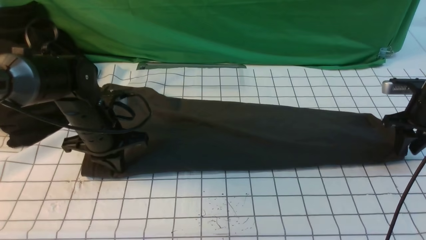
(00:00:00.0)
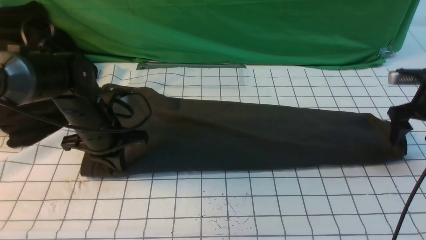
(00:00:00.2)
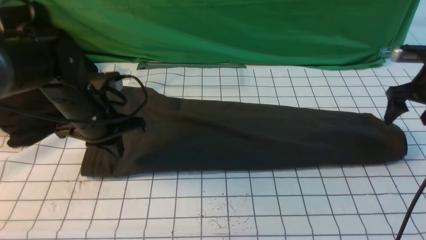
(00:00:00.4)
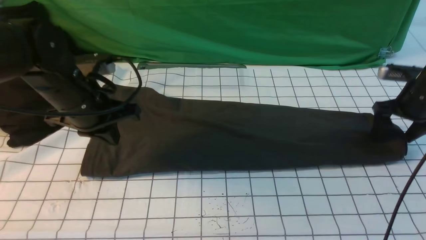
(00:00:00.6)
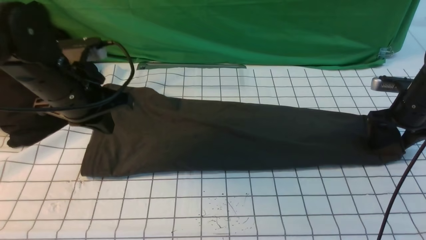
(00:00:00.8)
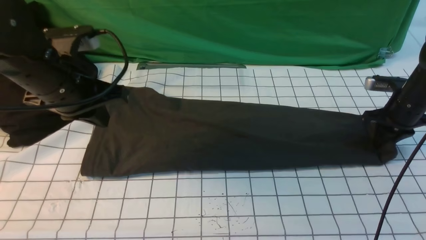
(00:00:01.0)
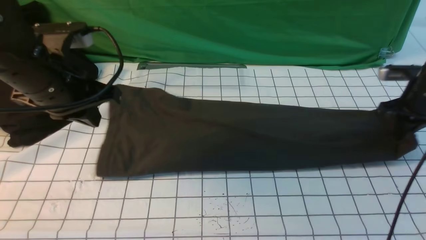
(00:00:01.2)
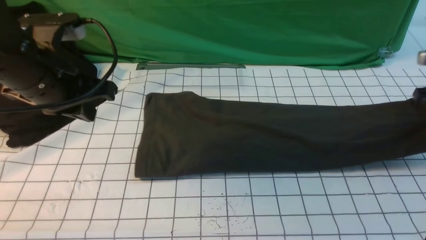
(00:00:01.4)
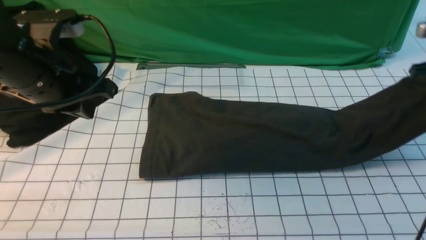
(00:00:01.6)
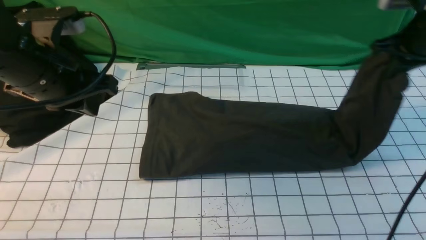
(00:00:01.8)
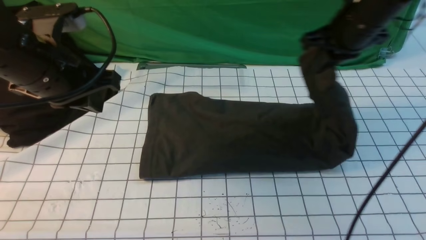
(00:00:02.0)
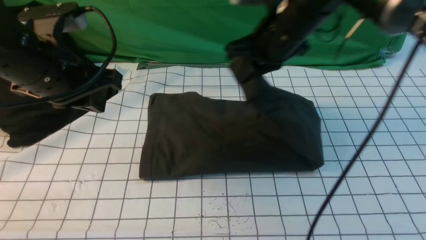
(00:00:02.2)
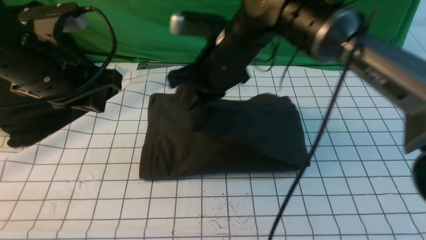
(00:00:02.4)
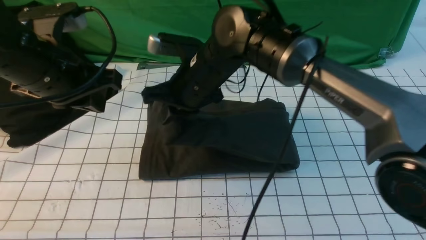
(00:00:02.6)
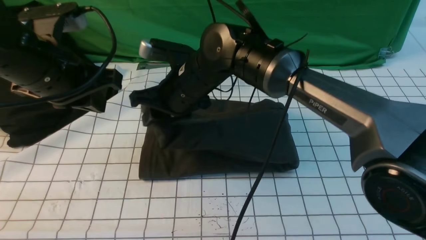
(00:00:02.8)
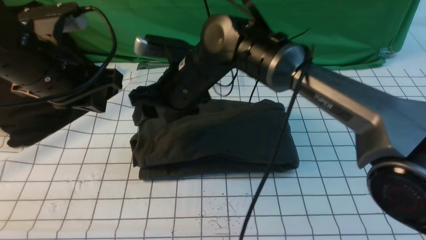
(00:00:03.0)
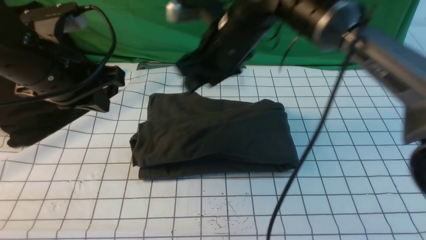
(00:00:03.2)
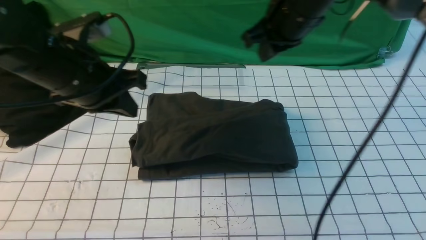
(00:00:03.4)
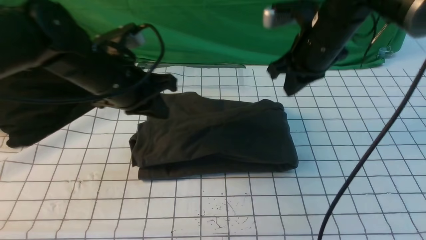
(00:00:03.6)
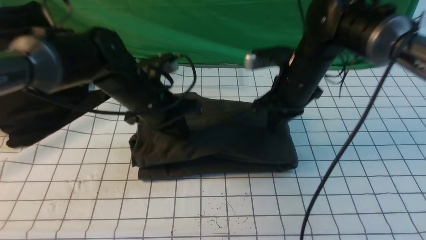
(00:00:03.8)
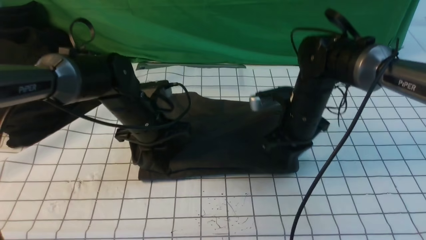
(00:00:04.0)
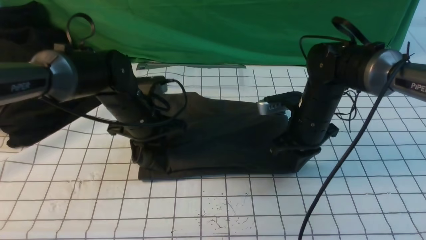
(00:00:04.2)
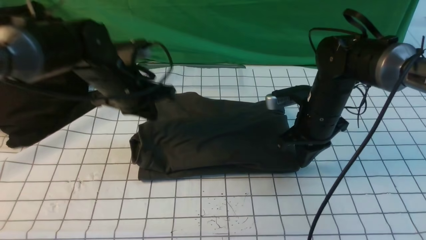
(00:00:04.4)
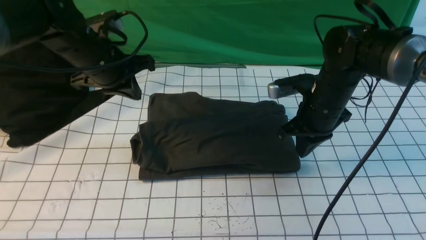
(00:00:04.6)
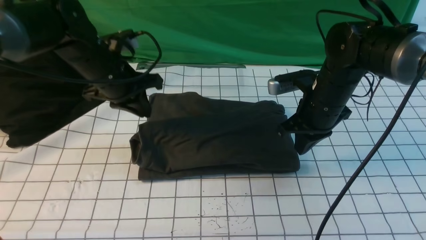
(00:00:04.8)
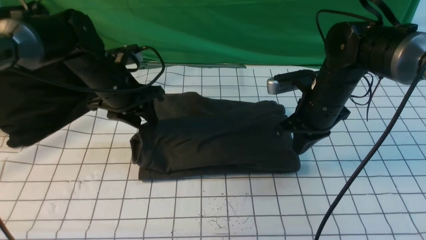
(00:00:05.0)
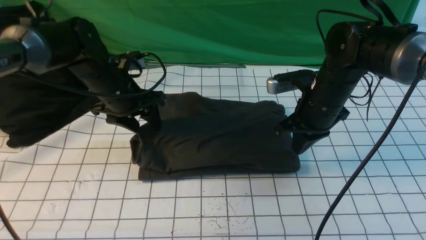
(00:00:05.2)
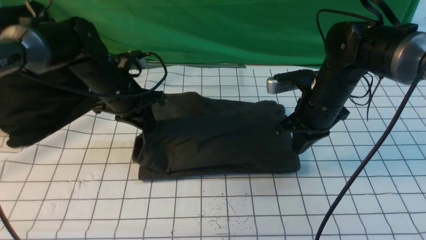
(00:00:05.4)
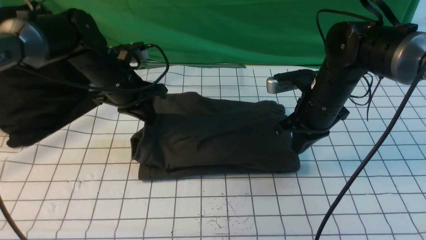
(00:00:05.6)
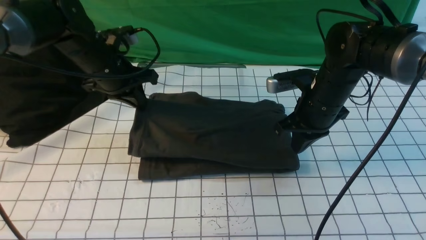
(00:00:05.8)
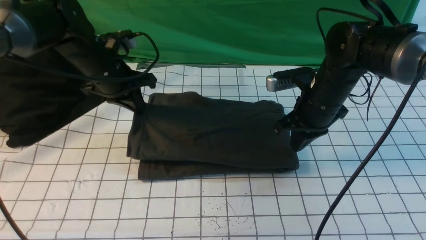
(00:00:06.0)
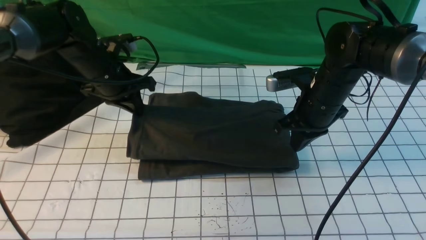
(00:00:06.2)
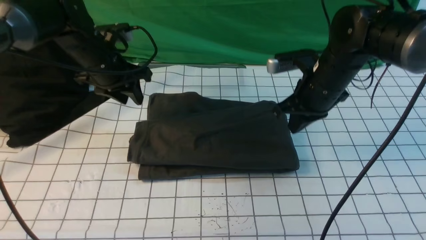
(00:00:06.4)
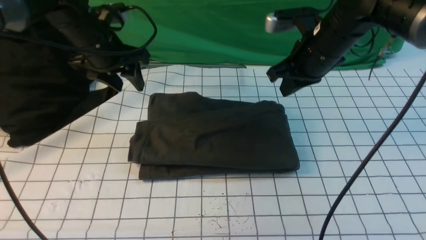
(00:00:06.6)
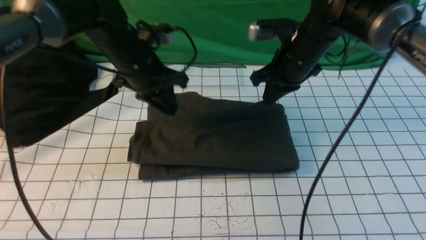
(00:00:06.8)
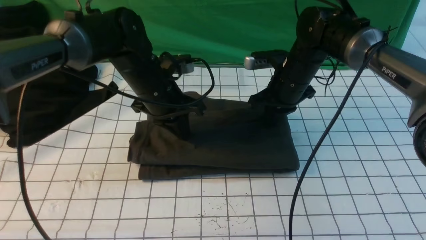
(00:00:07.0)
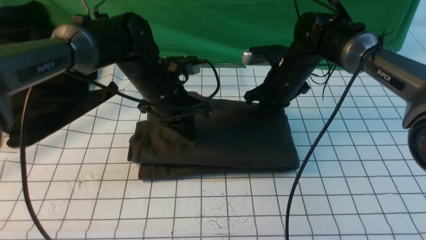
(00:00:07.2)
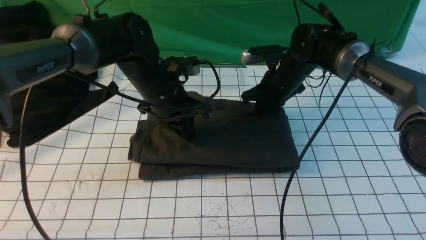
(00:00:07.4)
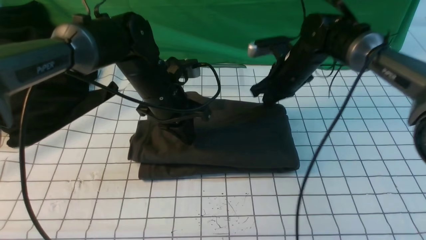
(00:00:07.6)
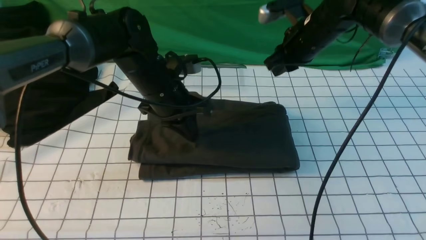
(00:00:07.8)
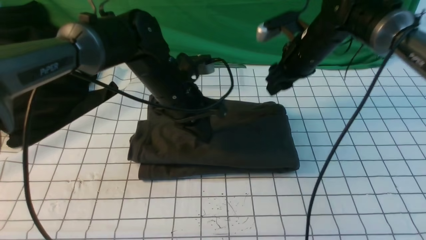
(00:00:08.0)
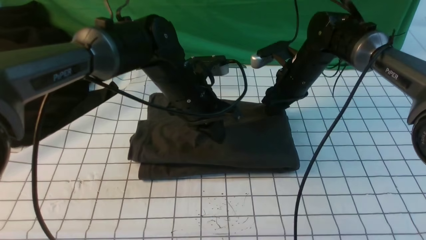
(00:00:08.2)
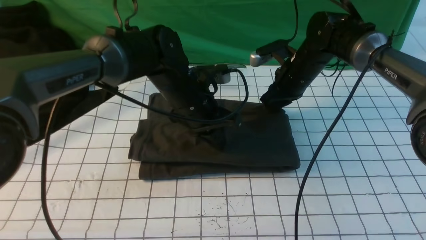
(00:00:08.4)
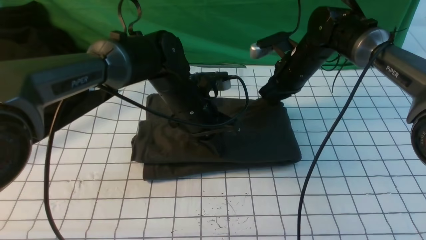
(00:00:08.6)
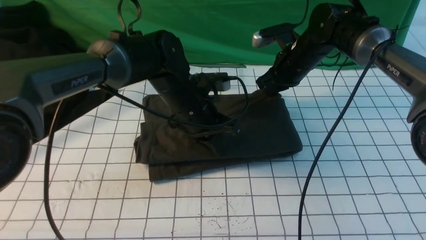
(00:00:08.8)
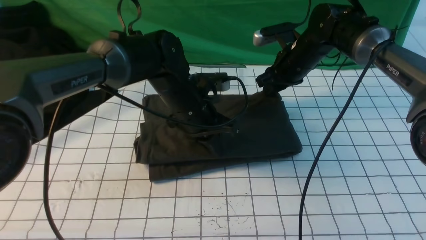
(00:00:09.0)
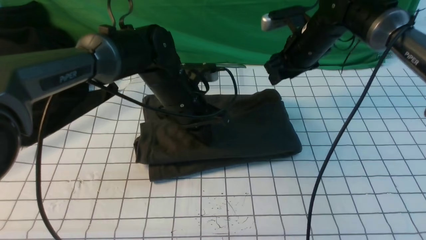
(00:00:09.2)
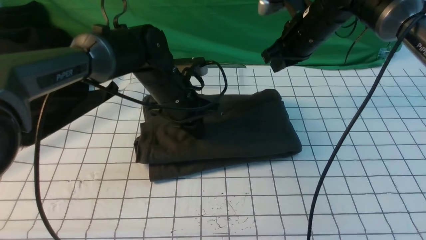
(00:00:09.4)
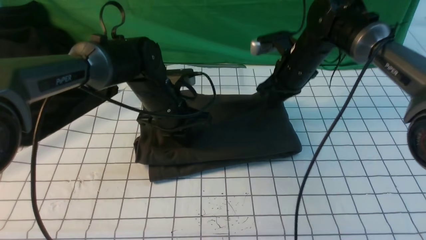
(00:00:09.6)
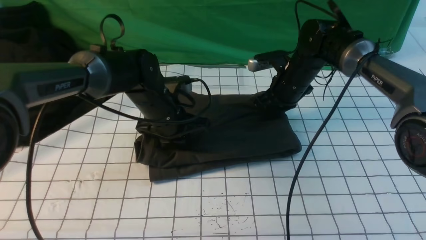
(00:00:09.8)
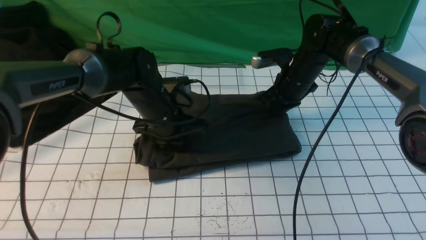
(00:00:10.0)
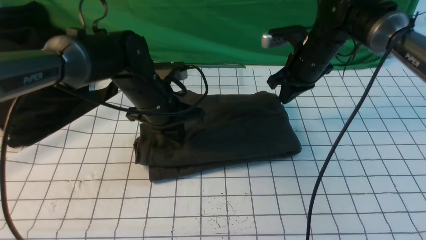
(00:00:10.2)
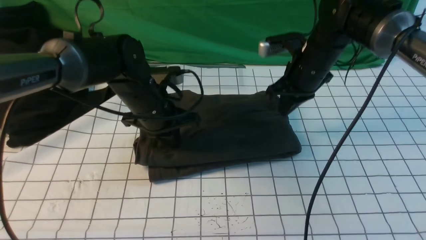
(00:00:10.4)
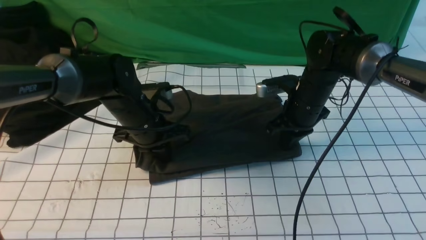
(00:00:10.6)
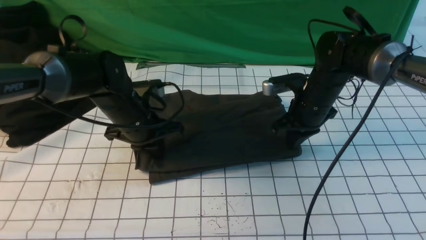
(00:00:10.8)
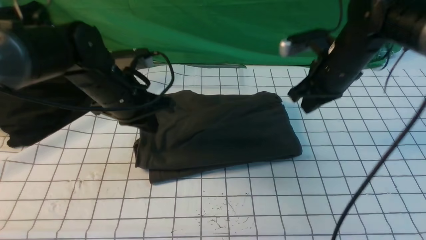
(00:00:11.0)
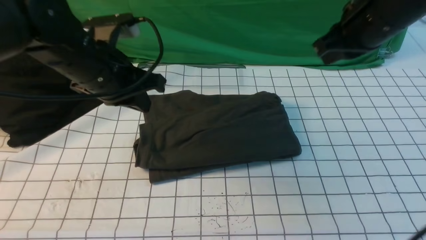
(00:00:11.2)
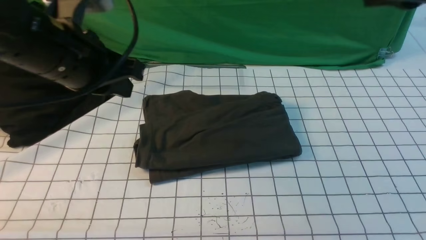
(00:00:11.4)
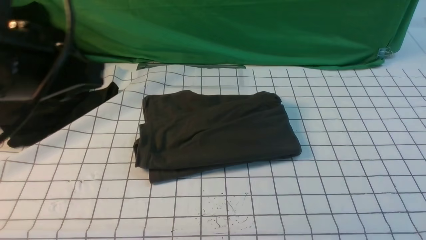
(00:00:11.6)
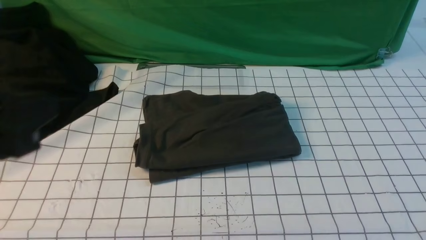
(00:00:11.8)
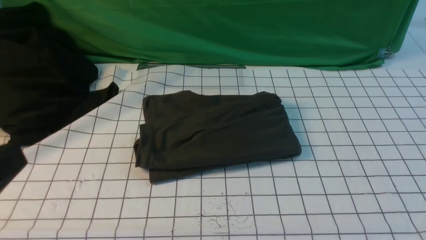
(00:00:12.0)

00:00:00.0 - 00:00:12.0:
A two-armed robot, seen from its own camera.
Step, 00:00:01.6 - 00:00:03.0: use the right arm to drag the right edge of the fabric to the left and folds it over the left edge.
00:00:00.0 - 00:00:01.6: The right gripper heads upward, covering about 10 cm, and closes. The left gripper heads upward and backward, covering roughly 15 cm.
00:00:01.6 - 00:00:03.0: The right gripper is displaced to the left by some 40 cm, and opens up.
00:00:03.0 - 00:00:04.4: The right gripper moves to the right and downward, about 20 cm, and closes; the left gripper moves forward and downward, roughly 15 cm.
00:00:04.4 - 00:00:06.0: The left gripper changes place by approximately 5 cm, and opens and closes again.
00:00:06.0 - 00:00:07.6: The right gripper travels forward by roughly 10 cm. The left gripper heads to the right, covering roughly 10 cm, and opens, then closes again.
00:00:09.0 - 00:00:10.4: The right gripper closes up; the left gripper moves to the left, roughly 5 cm.
00:00:10.4 - 00:00:12.0: The two grippers go approximately 40 cm backward and upward.

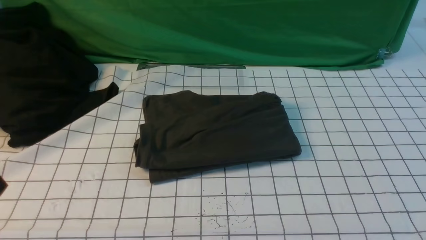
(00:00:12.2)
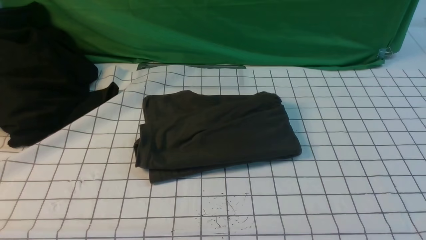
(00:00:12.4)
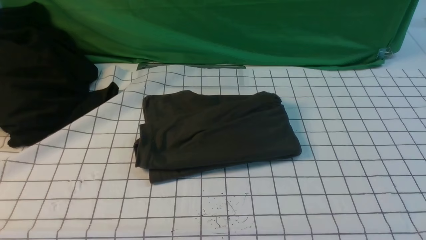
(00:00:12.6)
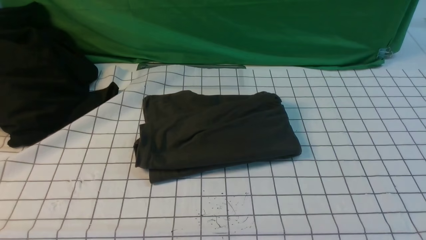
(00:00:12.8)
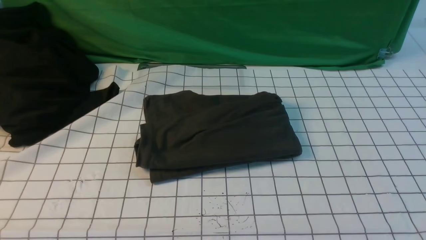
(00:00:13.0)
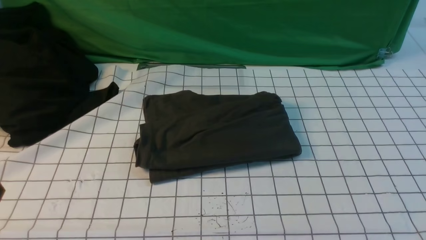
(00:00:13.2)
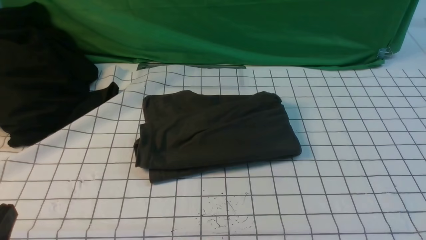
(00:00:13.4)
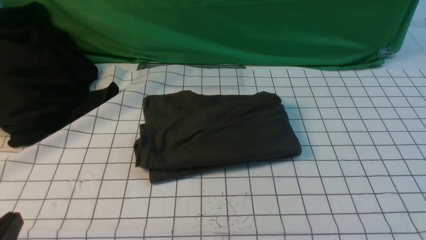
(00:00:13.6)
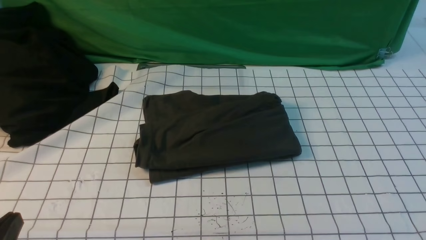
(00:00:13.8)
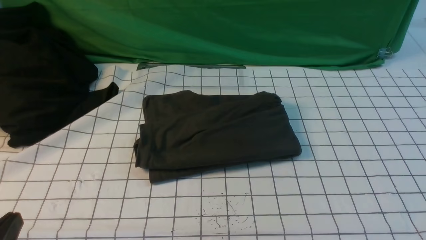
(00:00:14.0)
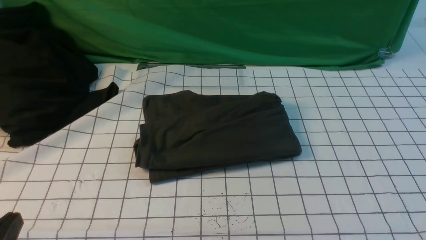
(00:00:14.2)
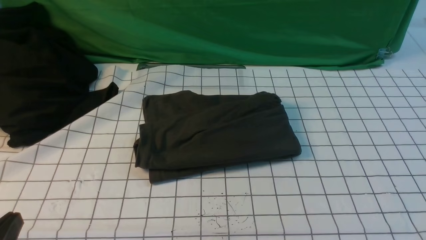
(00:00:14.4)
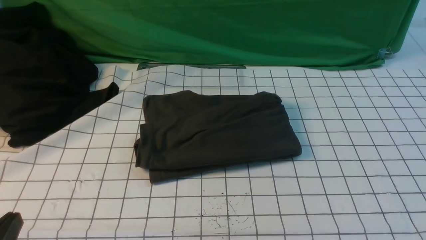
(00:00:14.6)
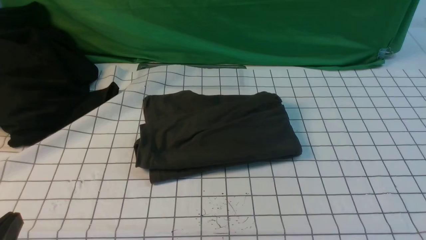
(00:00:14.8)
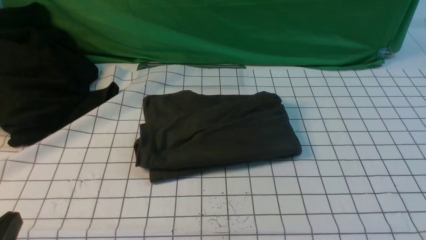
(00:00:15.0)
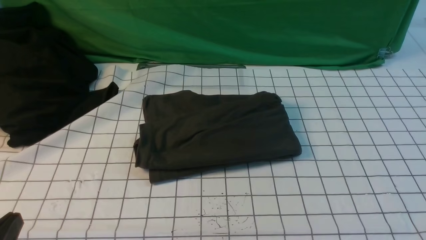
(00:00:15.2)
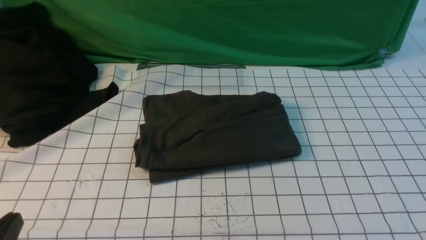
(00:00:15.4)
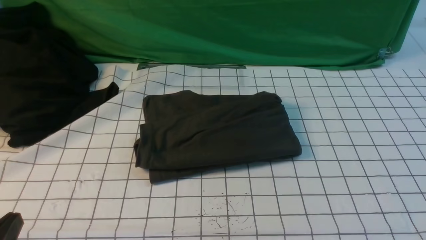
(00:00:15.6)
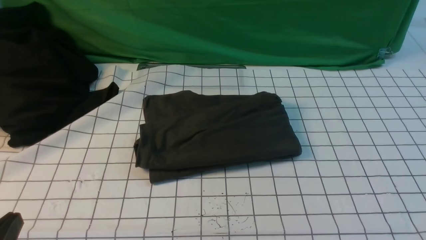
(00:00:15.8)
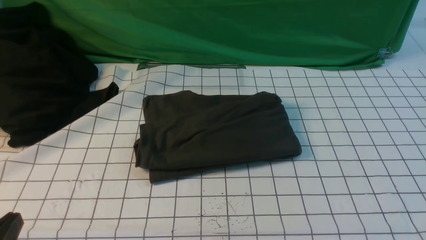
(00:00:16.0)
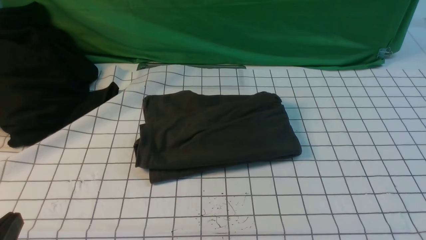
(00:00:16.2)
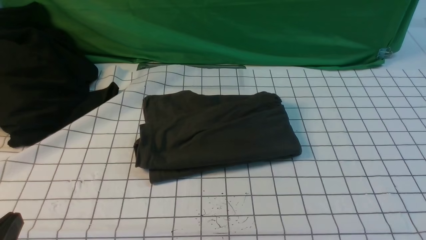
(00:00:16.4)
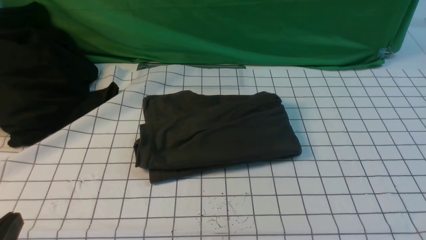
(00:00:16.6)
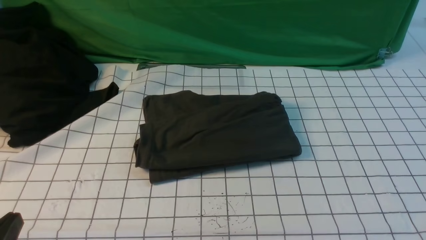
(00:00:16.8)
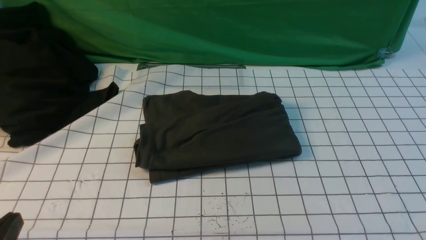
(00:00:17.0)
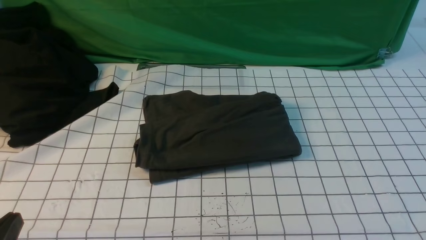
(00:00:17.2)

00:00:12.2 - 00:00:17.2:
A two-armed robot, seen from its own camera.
00:00:12.2 - 00:00:13.8: The left gripper moves downward, about 15 cm.
00:00:15.6 - 00:00:17.2: Both grippers stay put.
